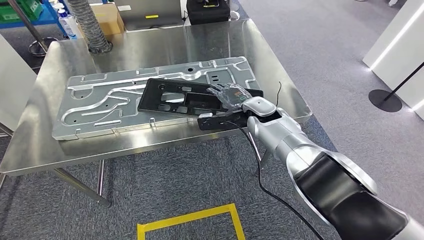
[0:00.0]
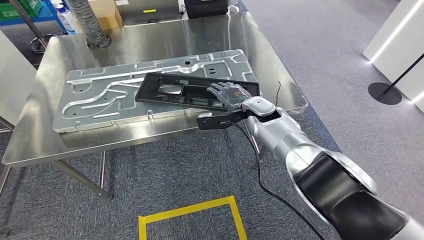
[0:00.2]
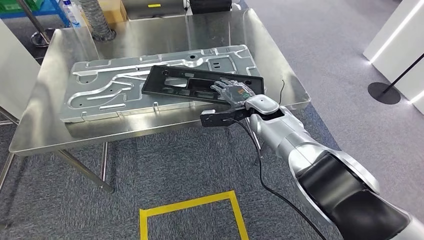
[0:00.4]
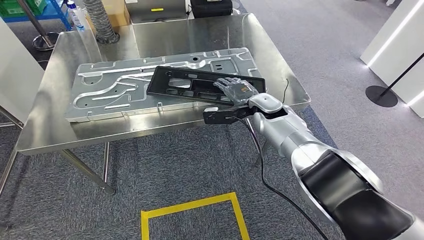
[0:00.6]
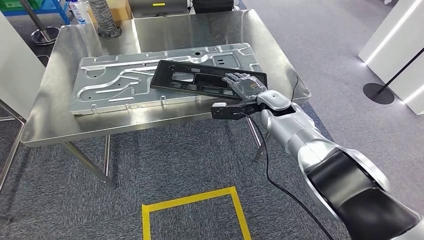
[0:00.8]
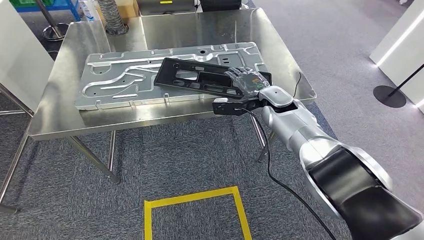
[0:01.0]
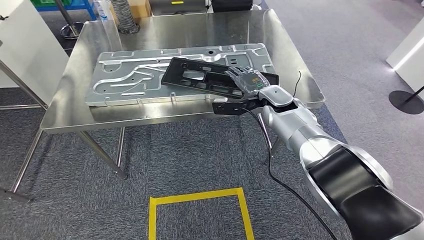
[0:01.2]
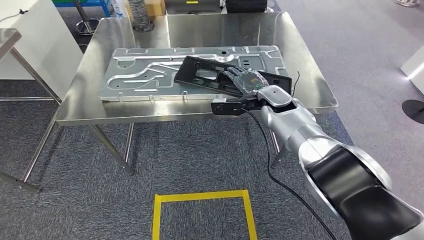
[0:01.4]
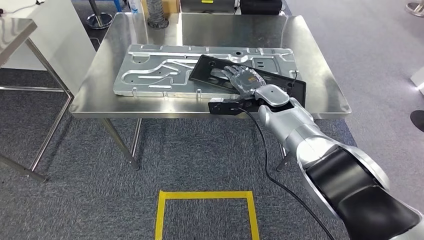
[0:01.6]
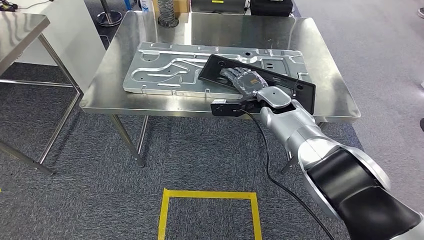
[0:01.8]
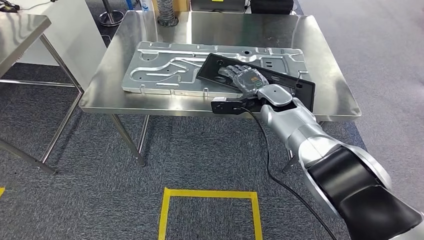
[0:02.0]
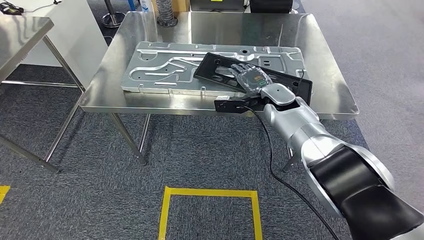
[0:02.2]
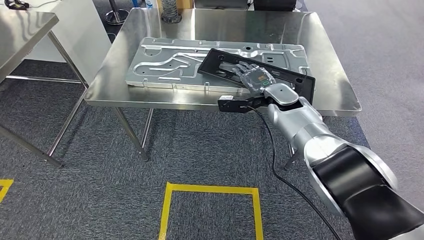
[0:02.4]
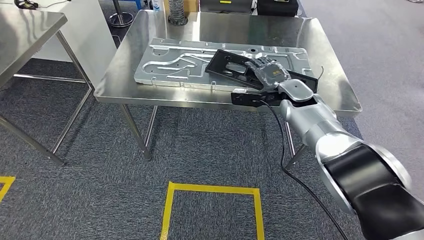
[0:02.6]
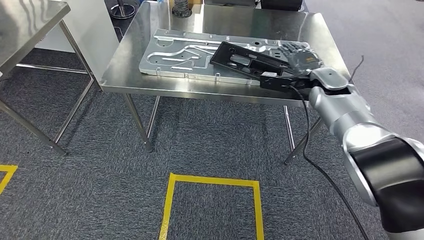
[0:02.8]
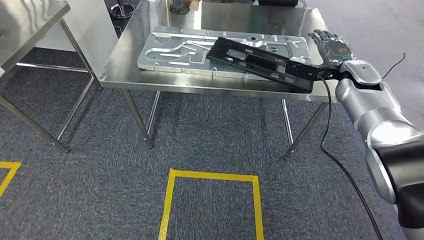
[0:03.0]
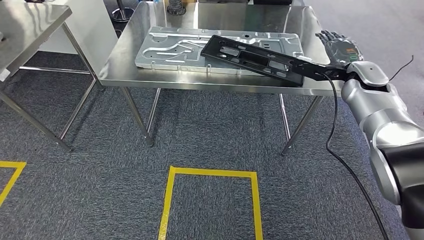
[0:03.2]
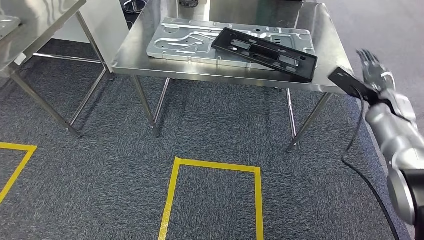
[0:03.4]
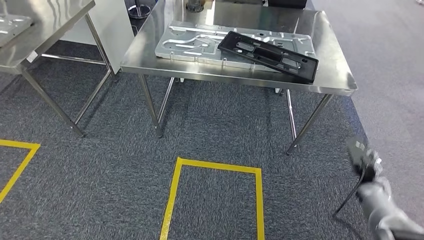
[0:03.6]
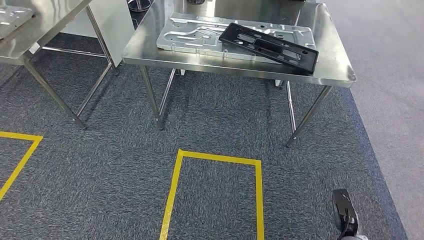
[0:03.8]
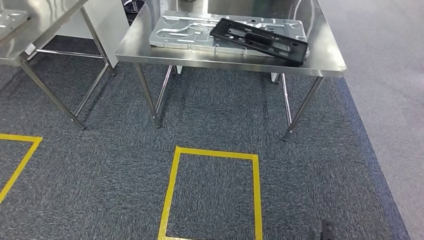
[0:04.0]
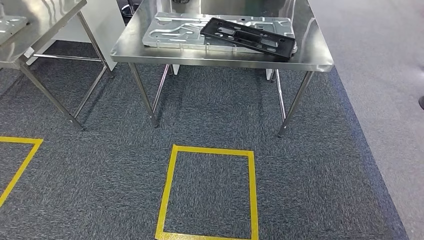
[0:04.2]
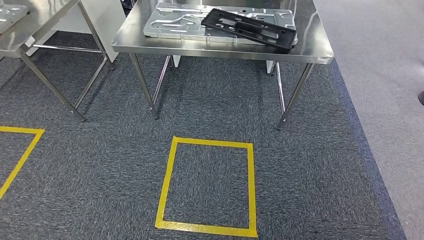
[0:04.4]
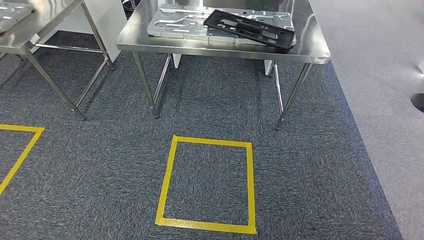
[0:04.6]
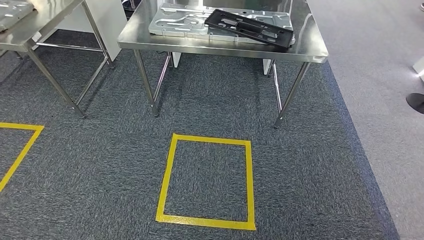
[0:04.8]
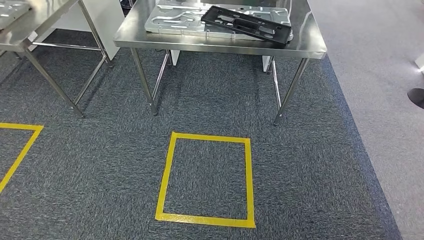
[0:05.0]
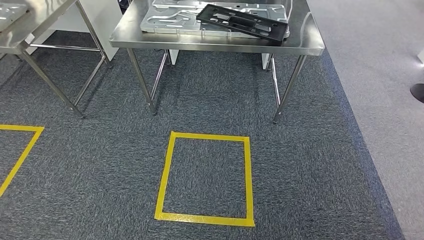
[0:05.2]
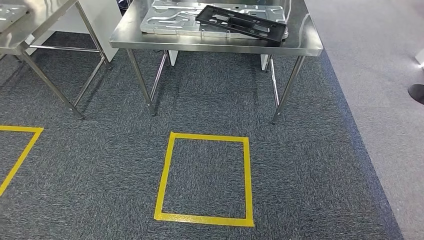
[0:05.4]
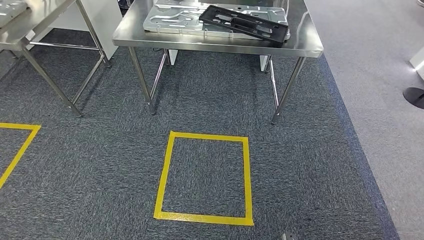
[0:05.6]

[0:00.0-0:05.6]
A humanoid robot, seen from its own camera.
Step, 0:02.6 to 0:05.6: Return to the initial position at the shelf.
